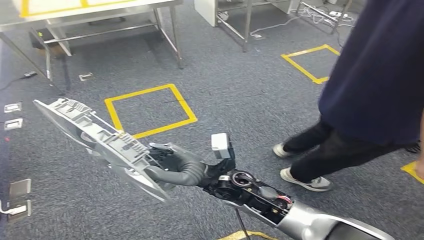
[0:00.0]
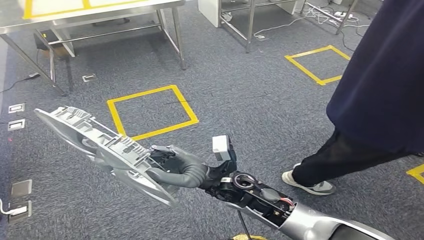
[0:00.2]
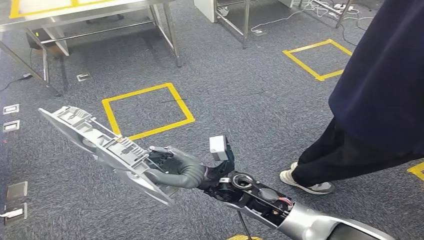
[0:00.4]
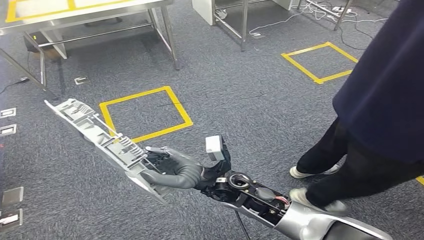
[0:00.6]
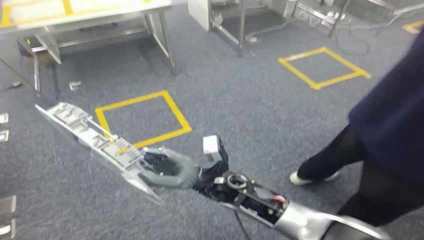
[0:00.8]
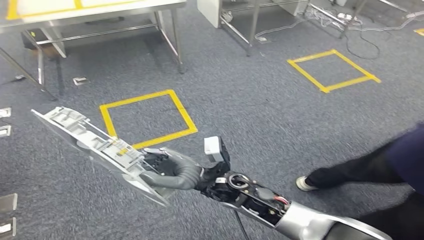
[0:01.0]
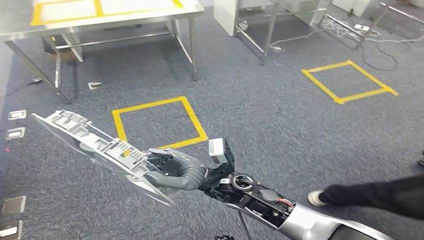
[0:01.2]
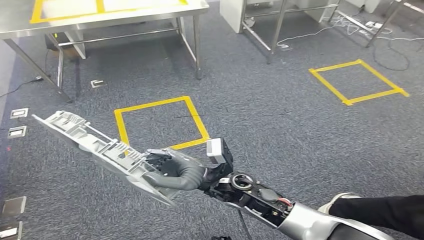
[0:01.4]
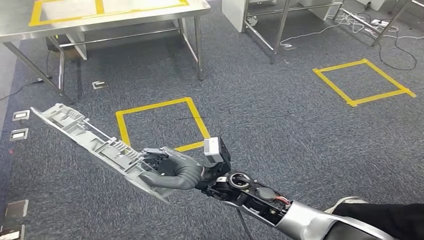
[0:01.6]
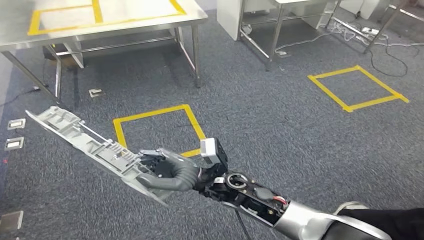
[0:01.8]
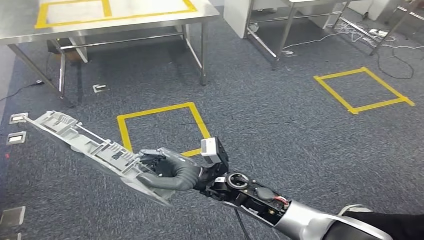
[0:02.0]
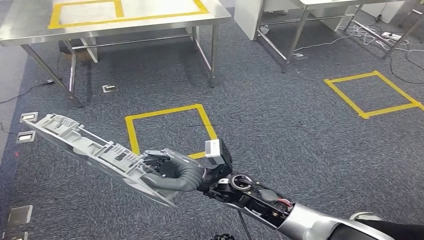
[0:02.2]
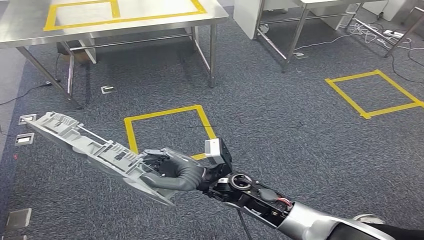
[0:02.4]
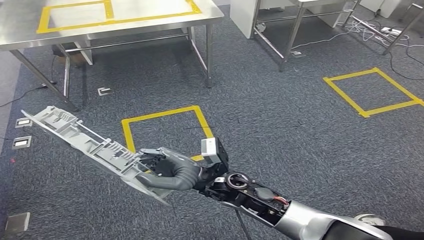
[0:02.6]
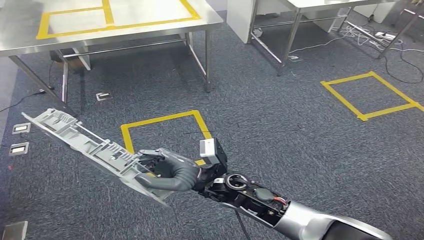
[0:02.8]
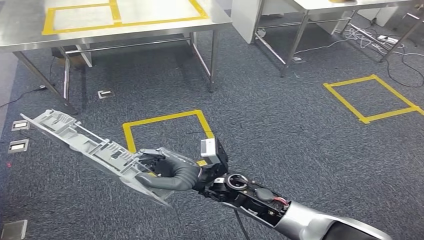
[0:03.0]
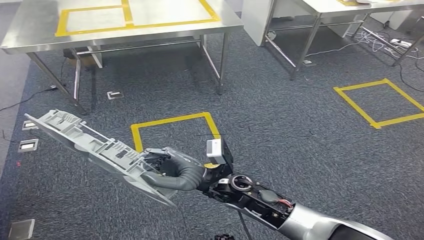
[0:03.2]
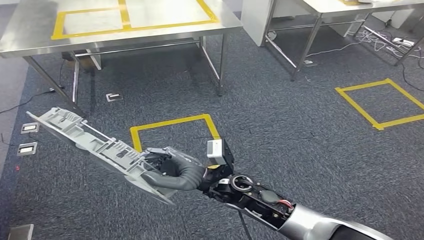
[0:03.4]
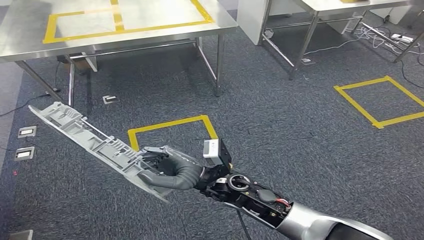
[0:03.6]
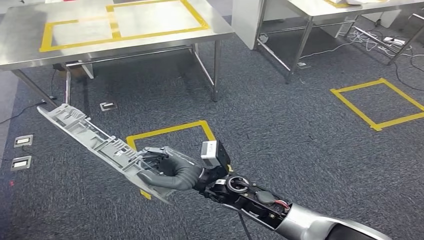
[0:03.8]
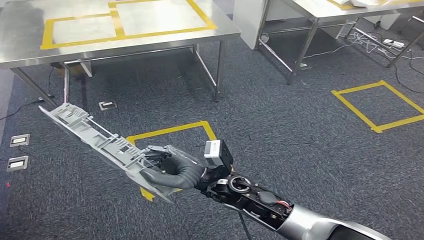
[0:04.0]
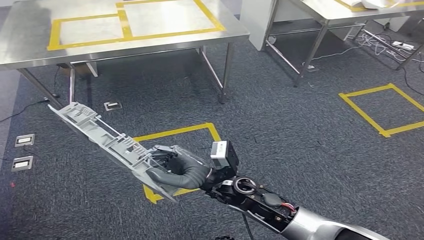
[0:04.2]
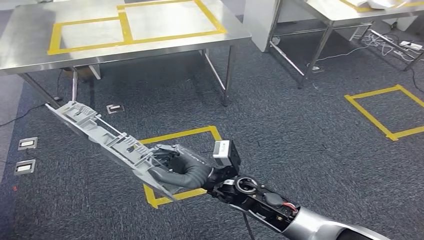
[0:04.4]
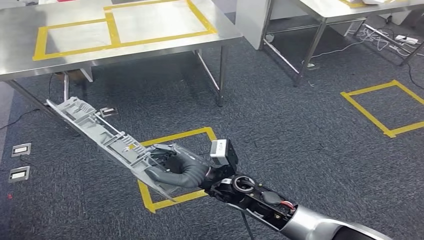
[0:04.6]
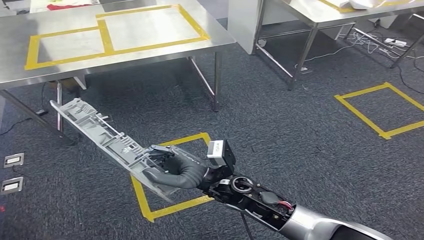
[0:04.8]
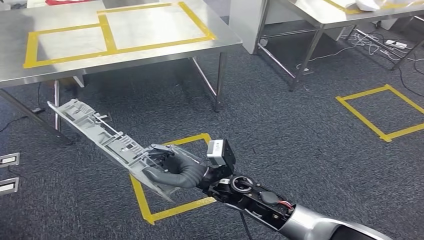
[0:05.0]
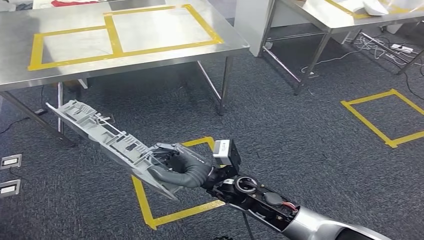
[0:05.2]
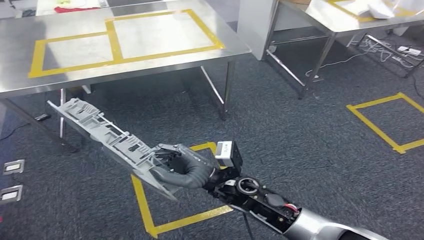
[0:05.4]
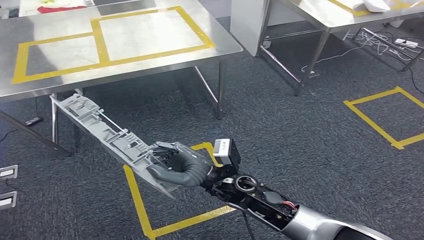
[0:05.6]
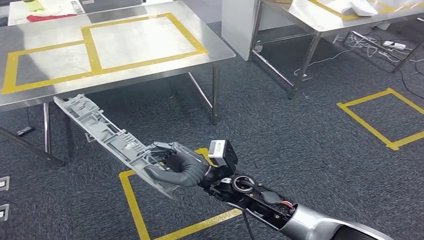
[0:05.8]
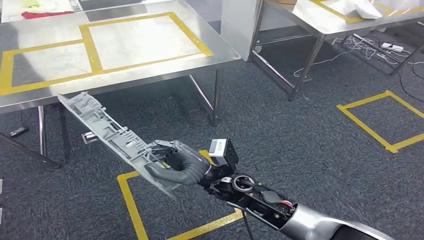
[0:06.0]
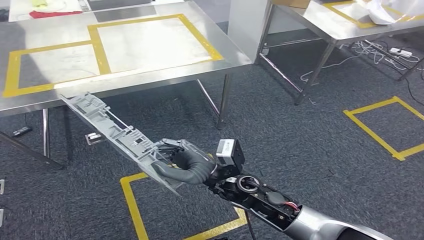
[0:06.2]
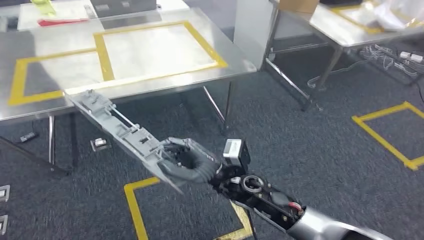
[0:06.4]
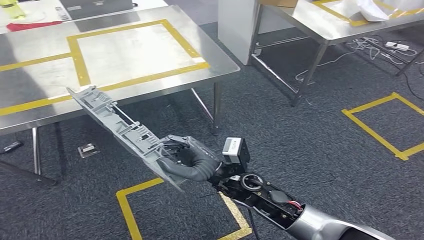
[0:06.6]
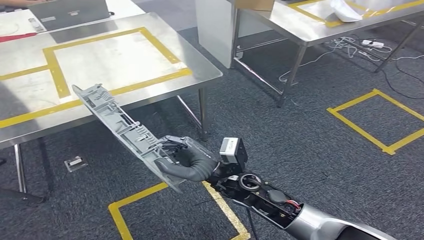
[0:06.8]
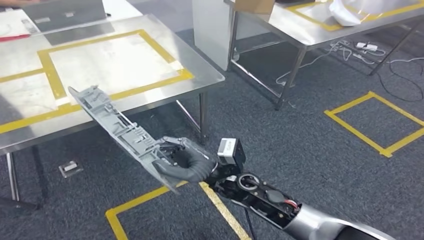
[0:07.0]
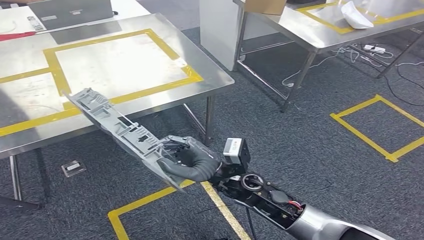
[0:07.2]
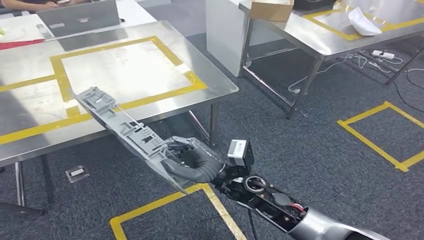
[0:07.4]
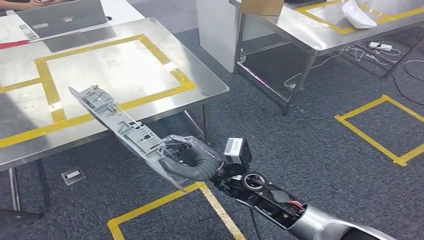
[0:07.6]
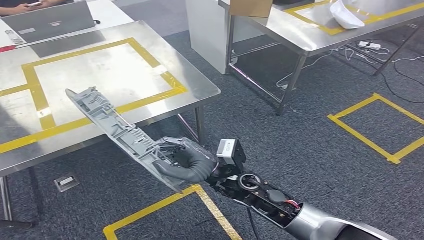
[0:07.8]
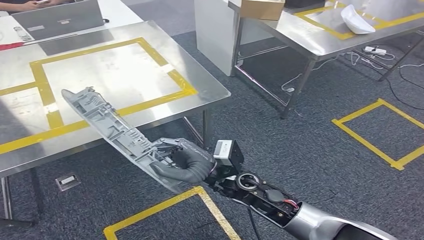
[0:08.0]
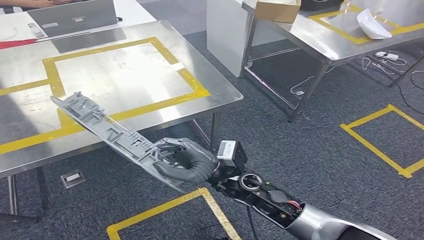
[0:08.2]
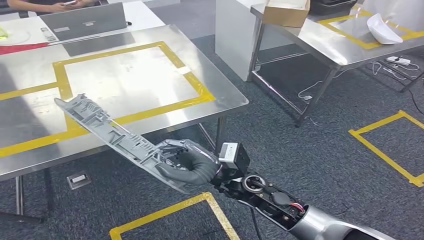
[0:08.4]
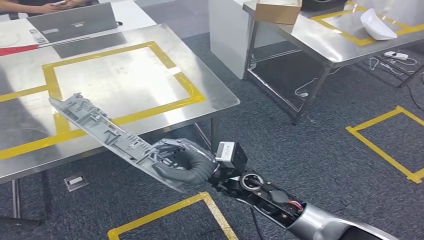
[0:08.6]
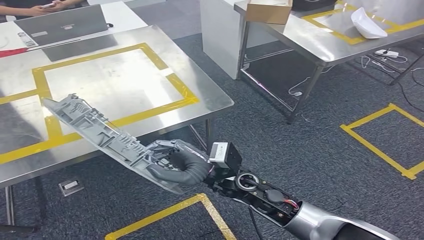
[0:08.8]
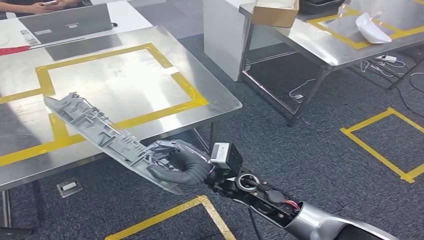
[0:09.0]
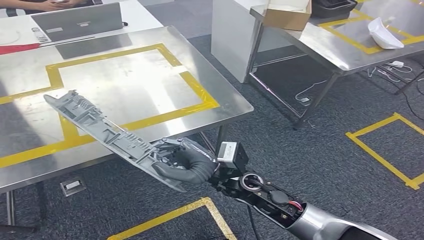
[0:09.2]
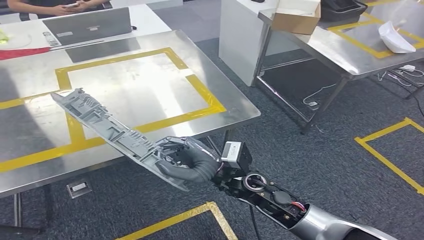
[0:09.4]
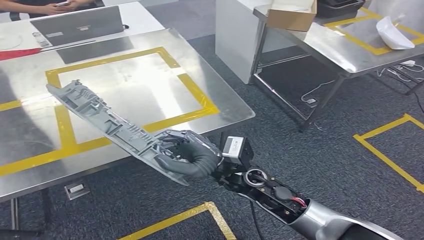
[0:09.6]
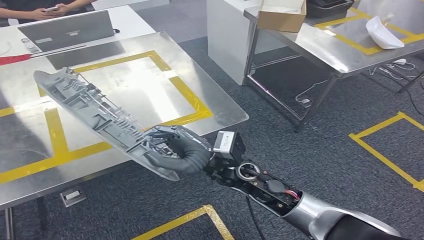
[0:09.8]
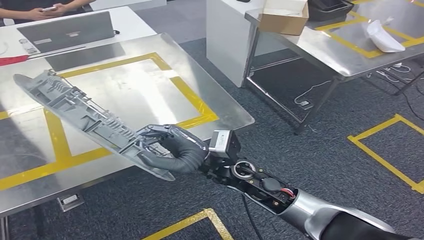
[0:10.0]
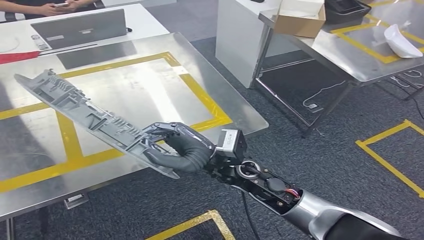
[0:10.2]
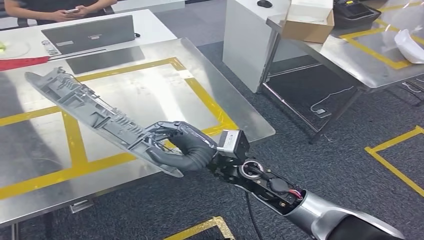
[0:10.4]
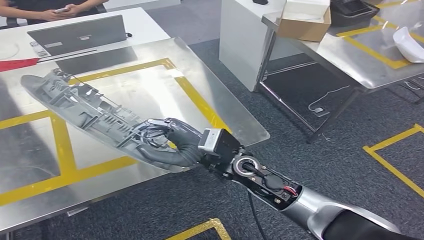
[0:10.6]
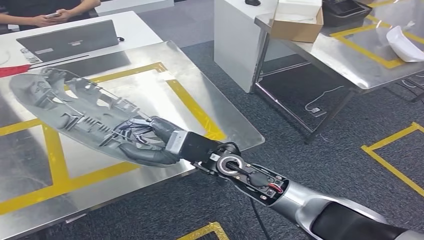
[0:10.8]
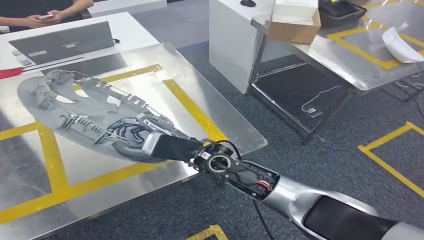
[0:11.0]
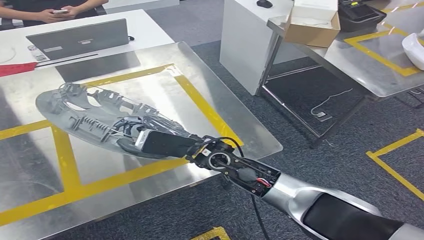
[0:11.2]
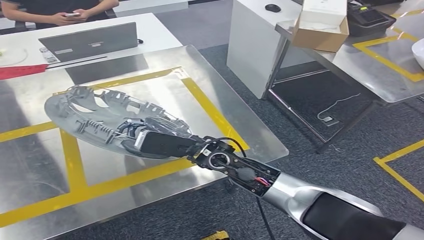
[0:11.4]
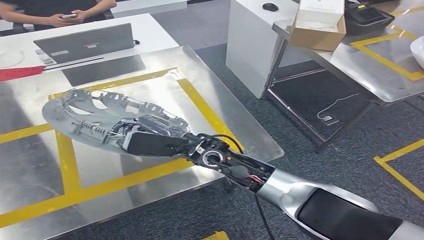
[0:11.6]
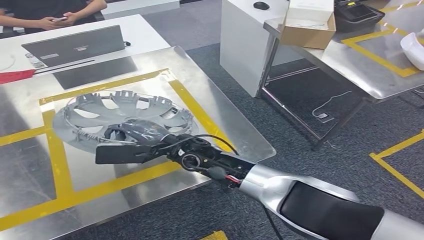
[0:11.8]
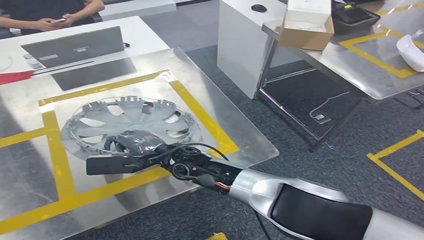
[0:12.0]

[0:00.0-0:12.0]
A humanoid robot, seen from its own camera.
Step, 0:00.0 to 0:10.4: Move the small component to the workbench.

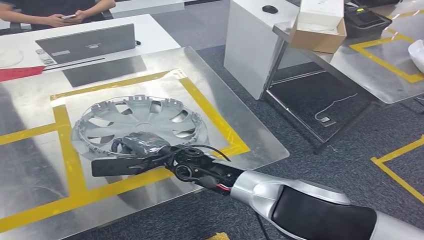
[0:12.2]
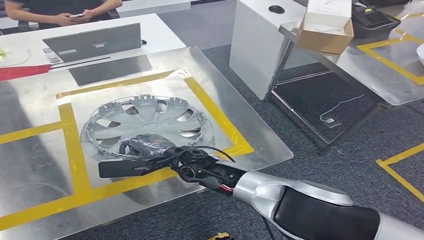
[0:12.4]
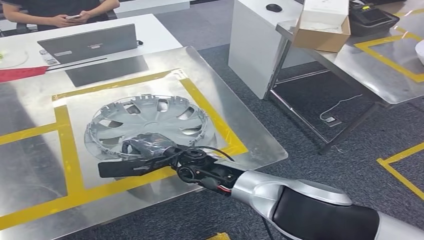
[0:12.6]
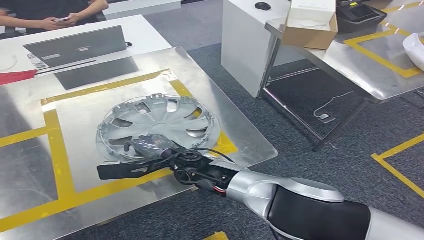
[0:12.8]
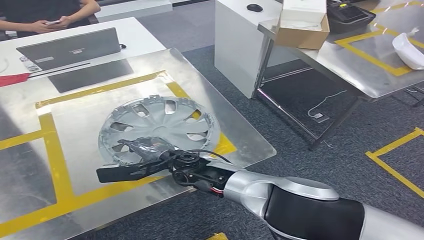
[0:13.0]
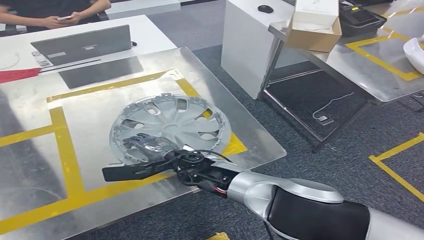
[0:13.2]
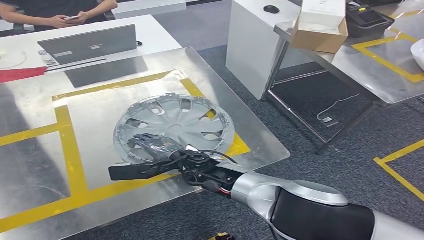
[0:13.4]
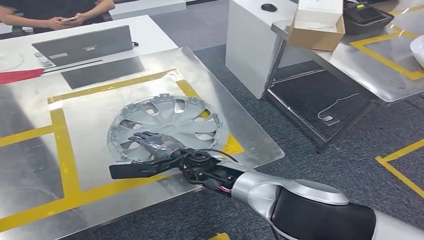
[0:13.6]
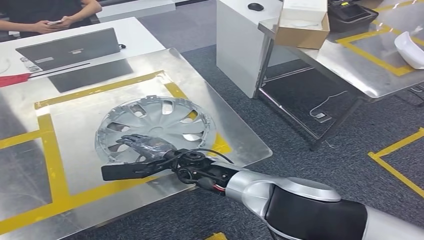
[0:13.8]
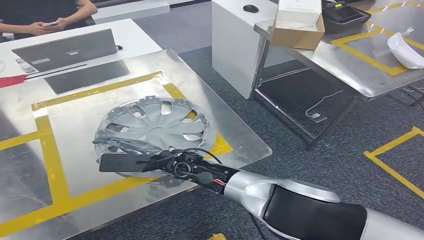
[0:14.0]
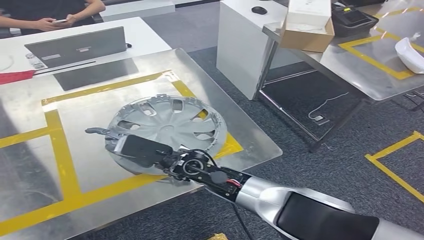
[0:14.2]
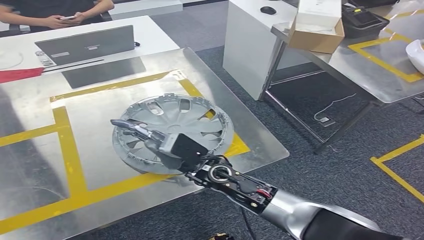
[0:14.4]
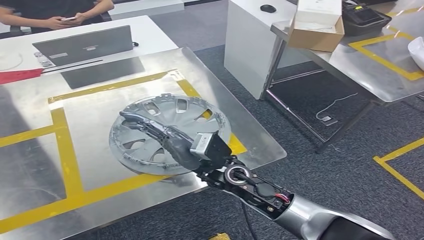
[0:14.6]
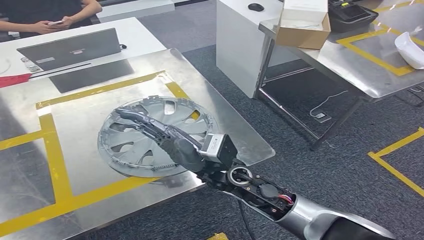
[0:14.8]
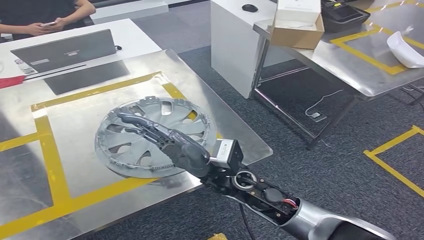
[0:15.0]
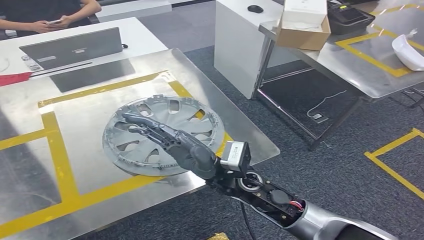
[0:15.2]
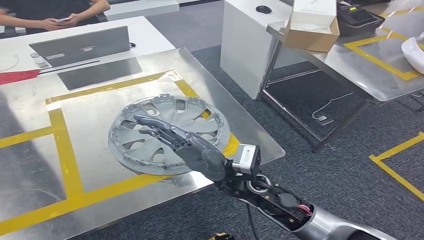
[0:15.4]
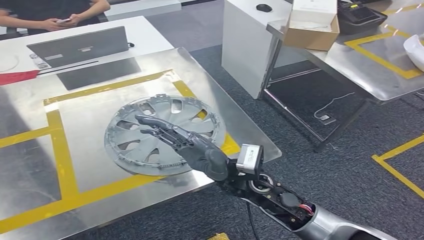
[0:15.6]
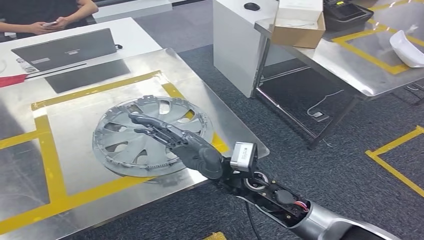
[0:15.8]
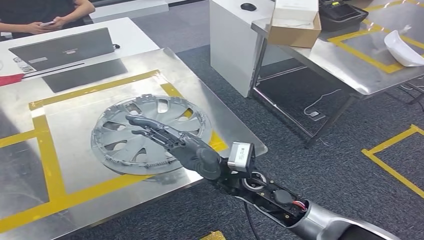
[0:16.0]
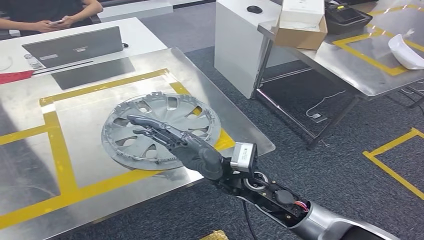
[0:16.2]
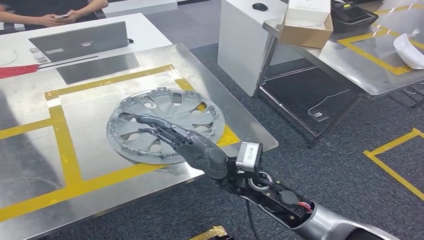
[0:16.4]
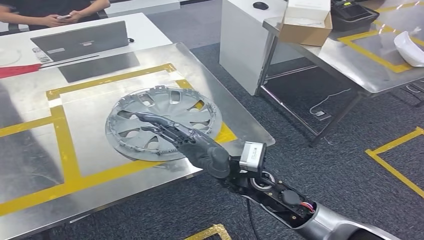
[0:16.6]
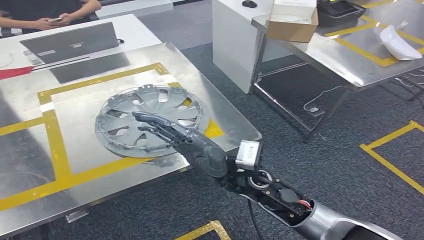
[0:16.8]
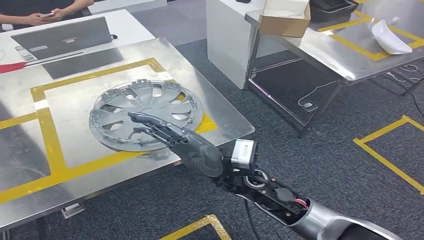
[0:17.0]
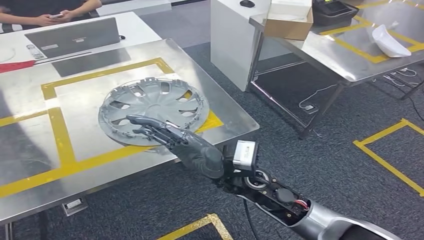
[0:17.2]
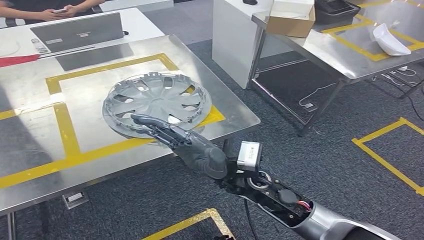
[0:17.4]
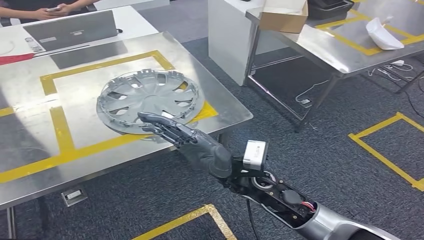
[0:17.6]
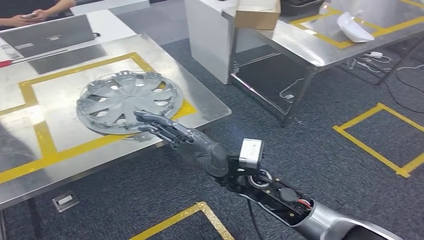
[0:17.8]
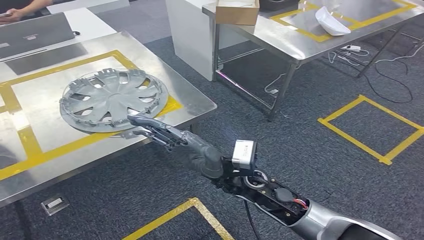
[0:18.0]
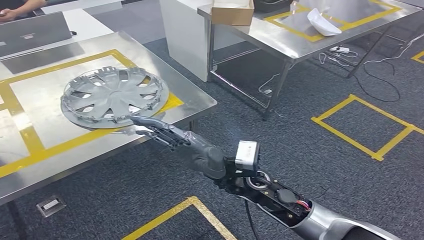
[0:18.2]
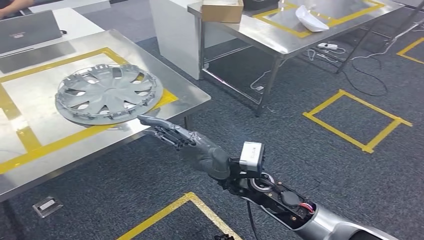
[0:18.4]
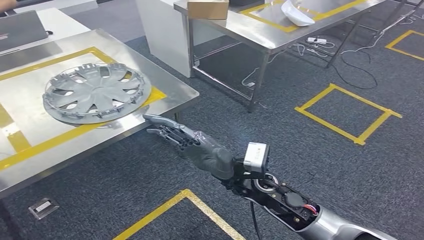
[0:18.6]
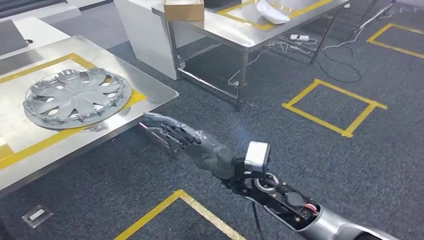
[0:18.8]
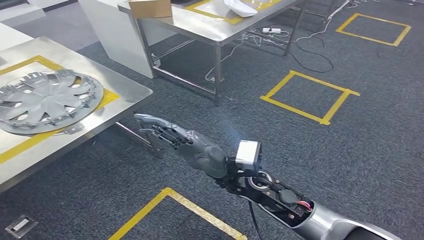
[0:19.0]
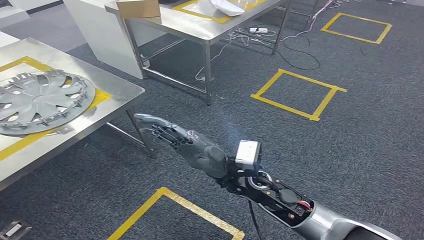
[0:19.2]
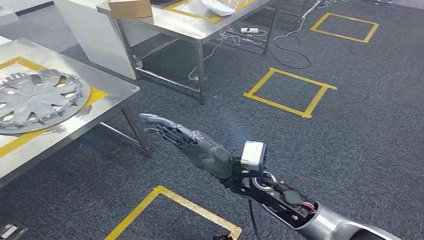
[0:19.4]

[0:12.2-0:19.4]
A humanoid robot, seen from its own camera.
Step, 0:12.2 to 0:16.2: Insert the small component into the corresponding slot on the workbench.
